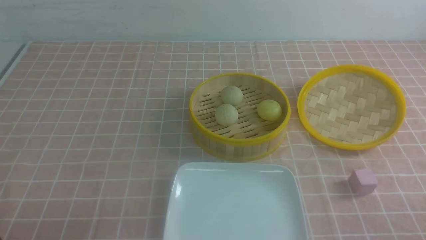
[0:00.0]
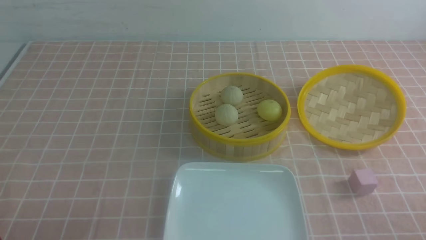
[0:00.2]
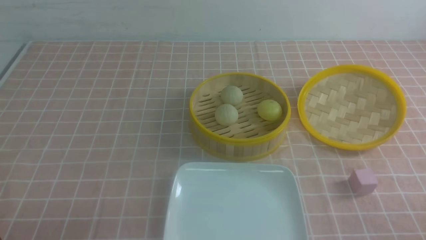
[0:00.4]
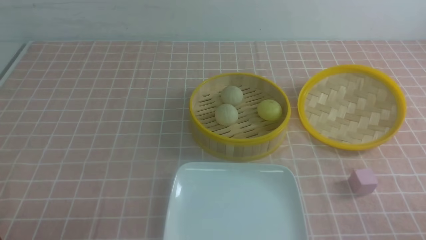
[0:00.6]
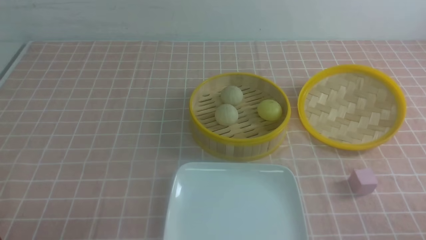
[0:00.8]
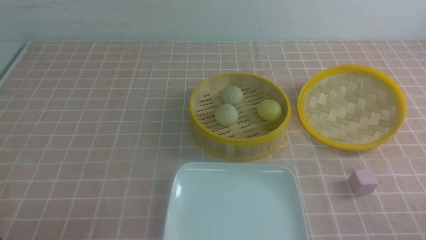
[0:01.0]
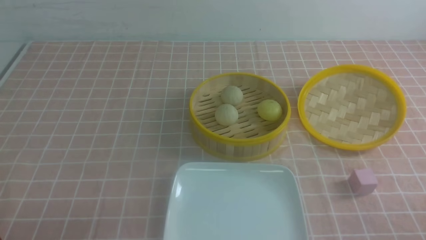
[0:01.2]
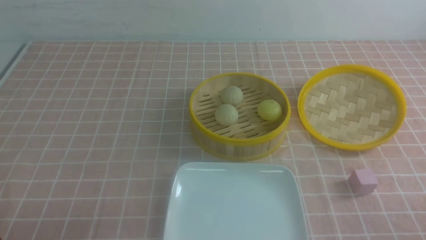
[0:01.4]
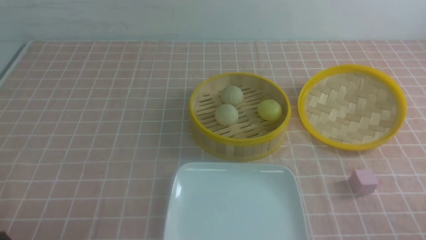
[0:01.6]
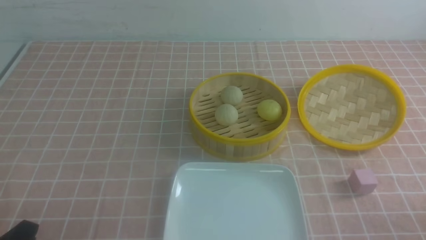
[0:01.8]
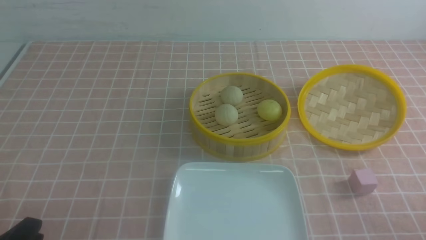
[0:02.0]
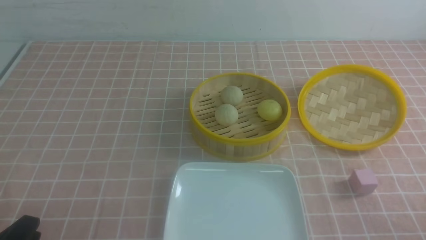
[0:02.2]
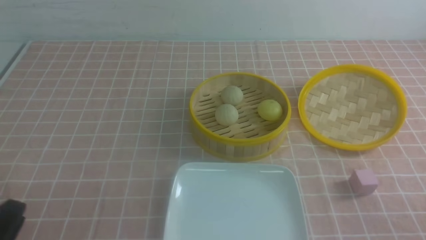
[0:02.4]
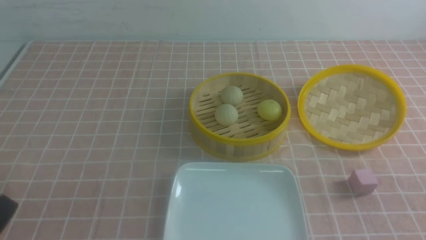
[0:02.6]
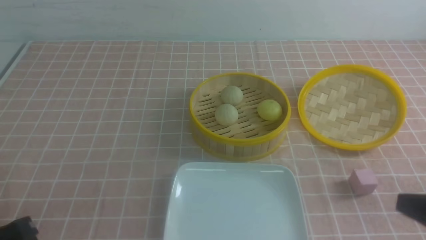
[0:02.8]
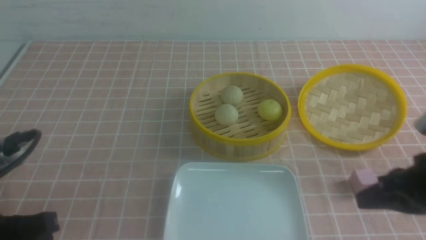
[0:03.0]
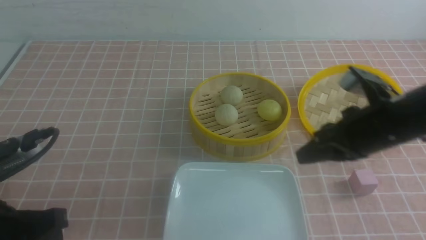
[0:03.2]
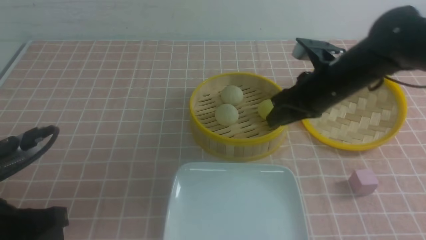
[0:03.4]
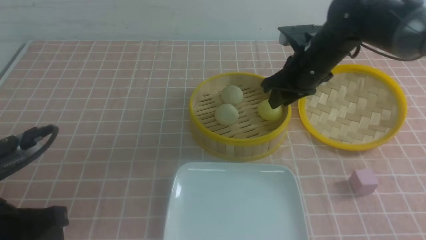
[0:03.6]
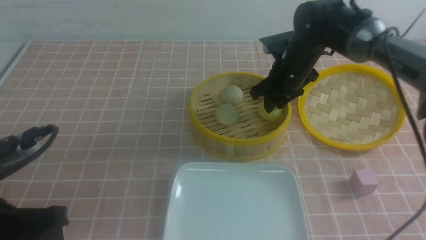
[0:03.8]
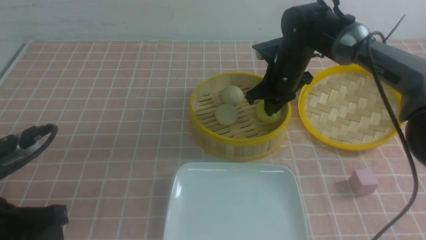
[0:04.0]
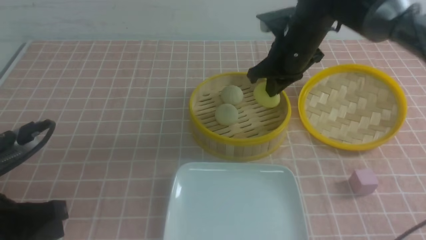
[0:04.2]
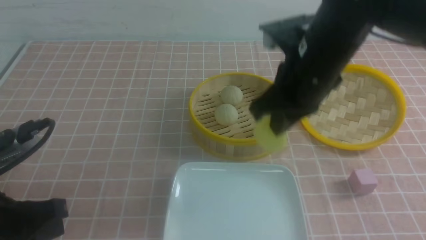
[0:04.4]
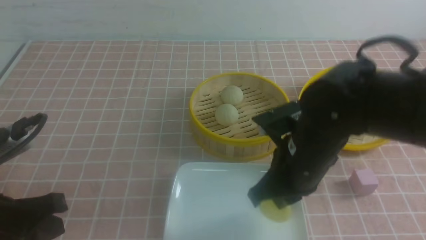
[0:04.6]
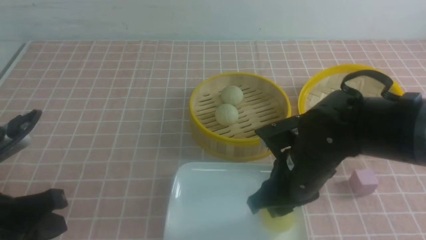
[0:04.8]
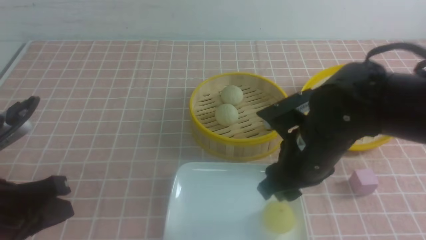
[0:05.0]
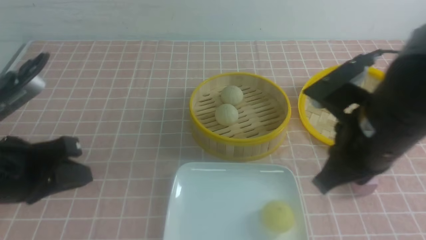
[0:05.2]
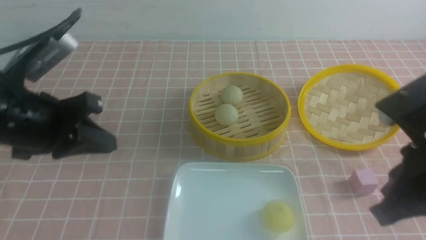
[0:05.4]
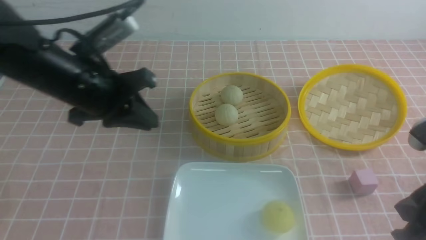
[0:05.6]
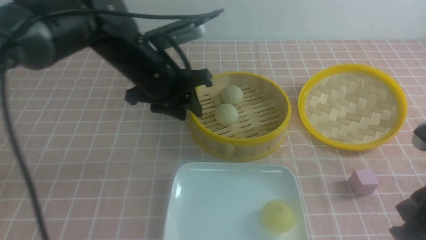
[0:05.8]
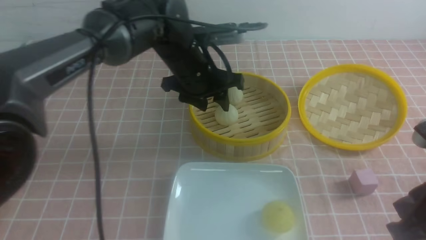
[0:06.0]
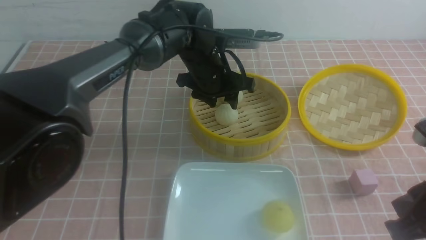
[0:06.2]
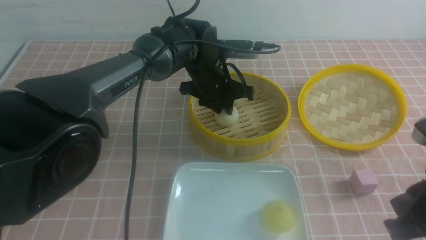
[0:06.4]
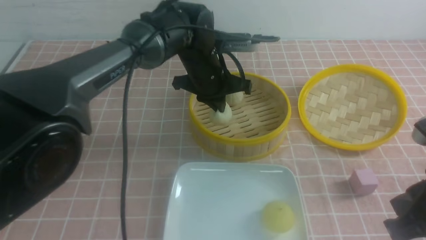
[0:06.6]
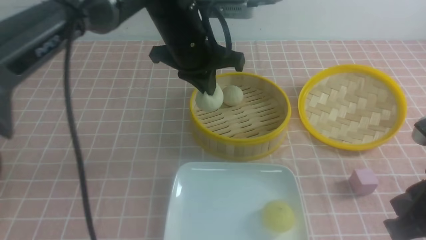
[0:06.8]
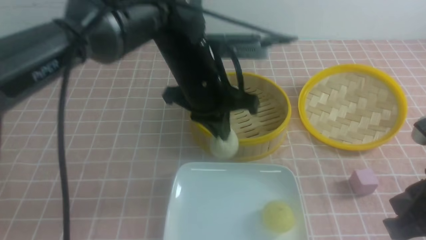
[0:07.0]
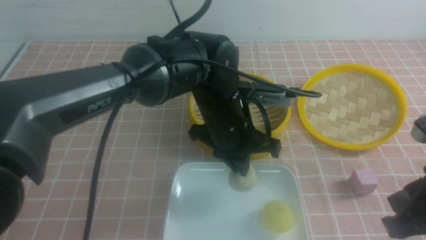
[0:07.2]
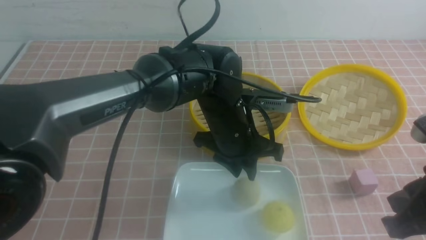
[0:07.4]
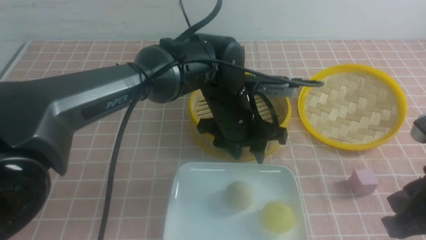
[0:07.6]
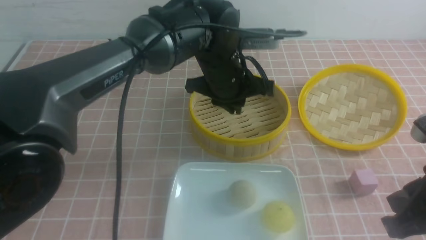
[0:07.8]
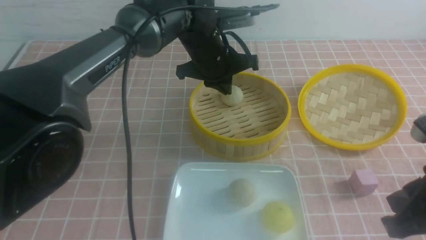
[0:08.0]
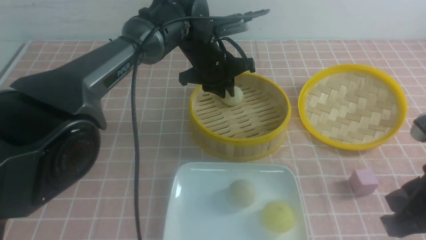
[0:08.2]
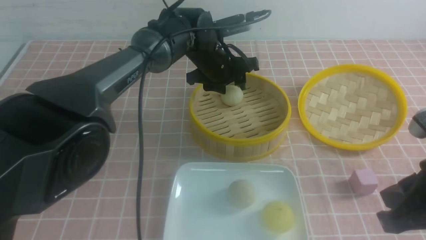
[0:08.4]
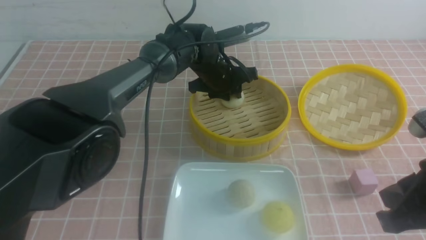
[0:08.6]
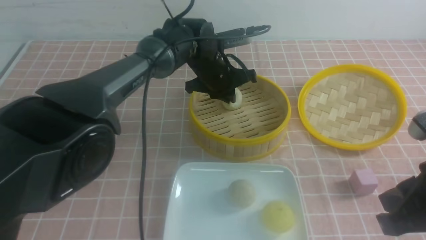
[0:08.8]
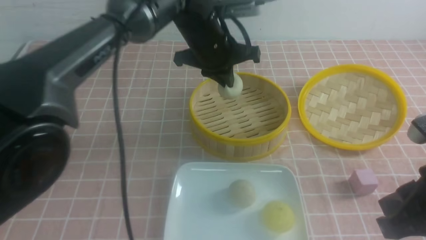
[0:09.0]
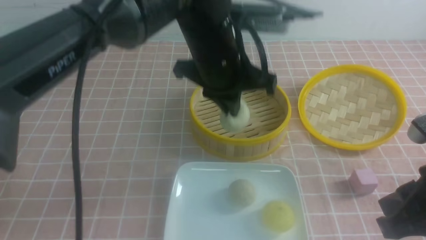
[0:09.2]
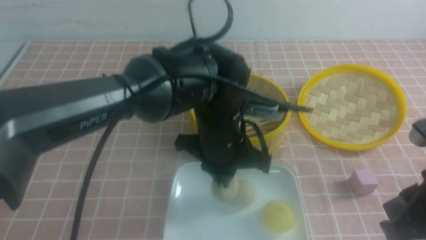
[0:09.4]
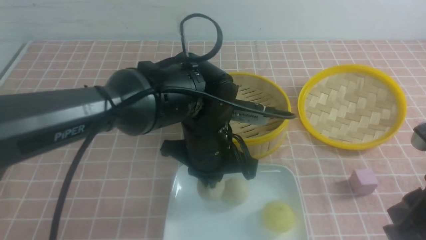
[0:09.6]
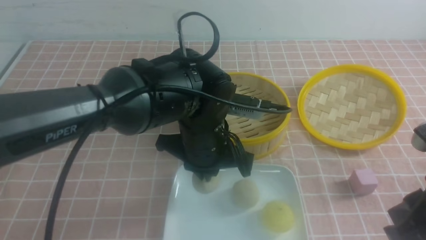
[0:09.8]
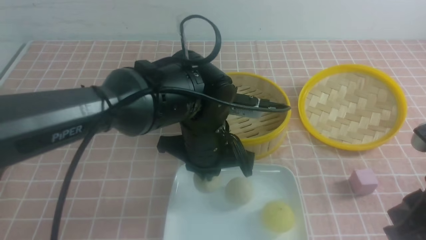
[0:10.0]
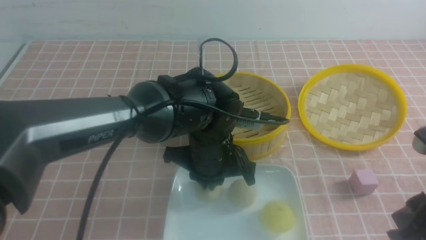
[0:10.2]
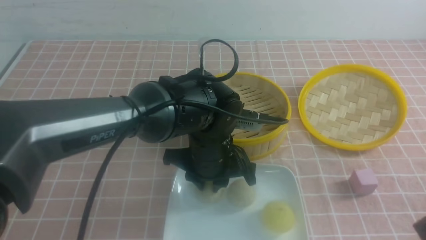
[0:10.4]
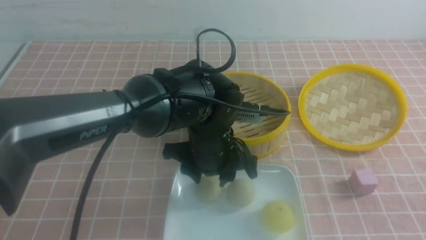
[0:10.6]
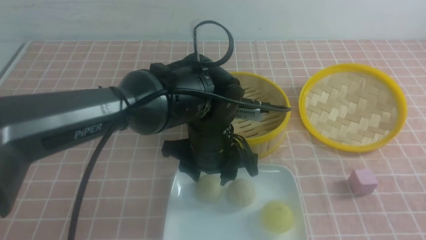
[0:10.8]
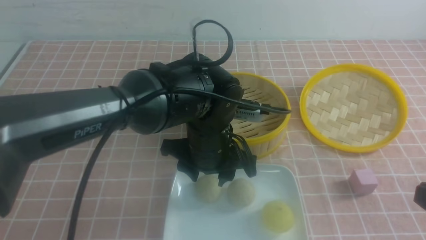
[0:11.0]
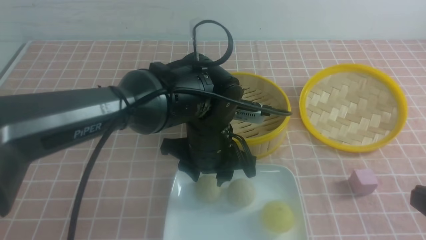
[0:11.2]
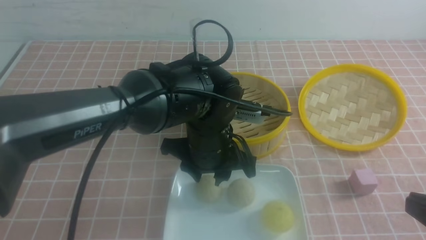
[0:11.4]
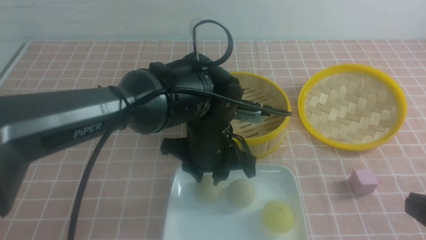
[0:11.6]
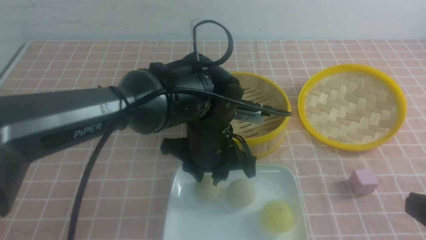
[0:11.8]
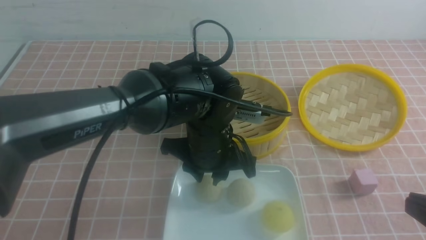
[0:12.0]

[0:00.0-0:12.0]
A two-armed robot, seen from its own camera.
Step, 0:00.0 to 0:04.0: use the right arm to grab the steamed stuffed bun that is closest to it.
Step, 0:04.2 to 0:04.8: use the right arm to put the steamed stuffed bun into the plate.
Step, 0:05.0 to 0:06.4: use the left arm to grab the steamed stuffed bun that is closest to it.
Step, 0:06.8 to 0:07.2: use the left arm to put the steamed stuffed bun into the plate.
Step, 0:07.4 to 0:08.8: use the left arm to grab the steamed stuffed bun that is closest to it.
Step, 0:09.0 to 0:10.4: use the left arm to put the steamed stuffed bun into the plate.
0:01.6 to 0:03.0: The right gripper heads forward, upward and to the left, covering roughly 20 cm, and closes up. The left gripper travels upward and forward by some 10 cm, and closes.
0:03.0 to 0:04.4: The right gripper heads to the left and forward, covering roughly 20 cm, and opens and closes again.
0:04.4 to 0:06.0: The right gripper goes roughly 20 cm backward and to the right, and opens, then closes again. Meanwhile the left gripper moves forward and to the right, roughly 35 cm, and opens up.
0:06.0 to 0:07.6: The left gripper is displaced to the right and backward by approximately 10 cm, and closes its fingers.
0:07.6 to 0:09.0: The left gripper closes.
0:09.0 to 0:10.4: The left gripper heads backward and downward, covering some 15 cm, and opens.
0:10.4 to 0:12.0: The left gripper opens, then closes again; the right gripper ends up approximately 5 cm from where it was.

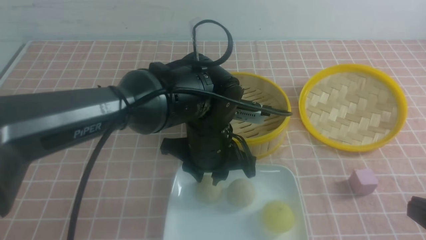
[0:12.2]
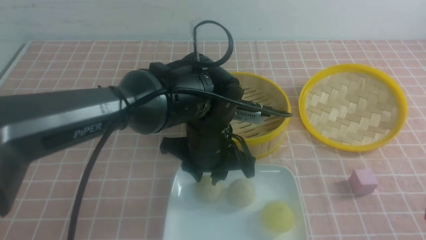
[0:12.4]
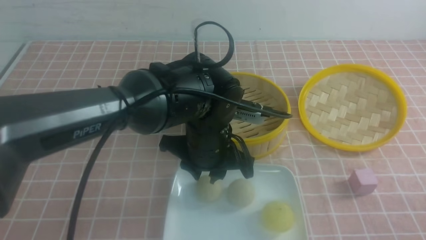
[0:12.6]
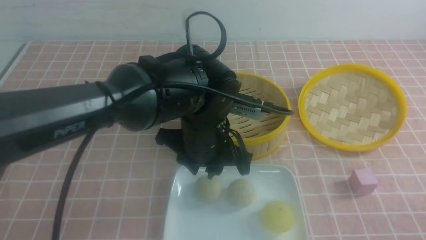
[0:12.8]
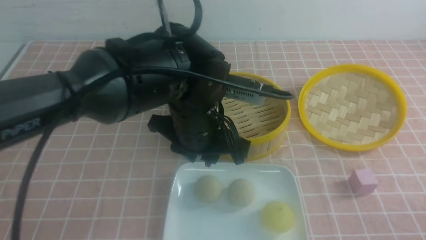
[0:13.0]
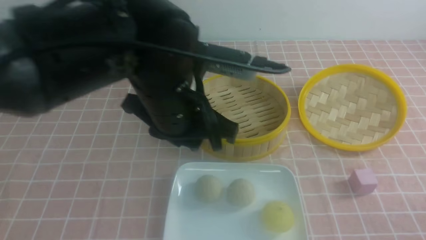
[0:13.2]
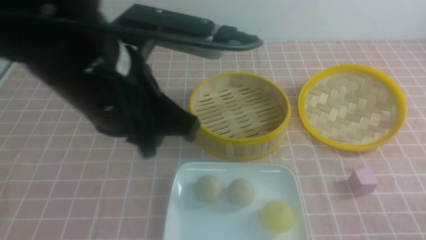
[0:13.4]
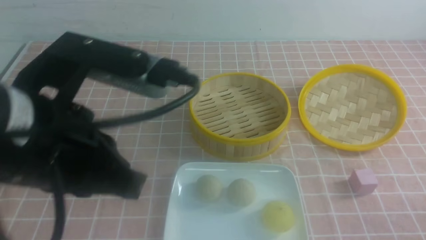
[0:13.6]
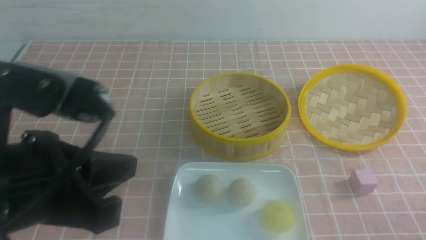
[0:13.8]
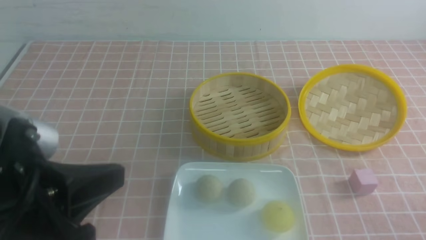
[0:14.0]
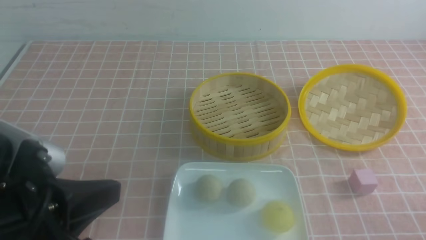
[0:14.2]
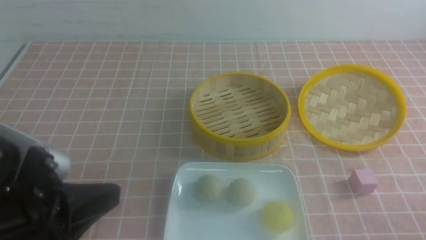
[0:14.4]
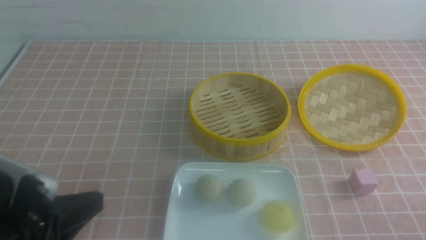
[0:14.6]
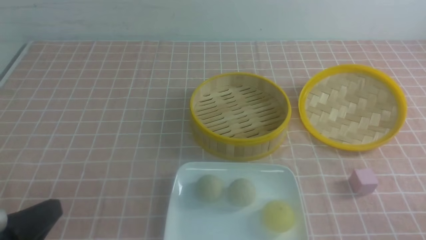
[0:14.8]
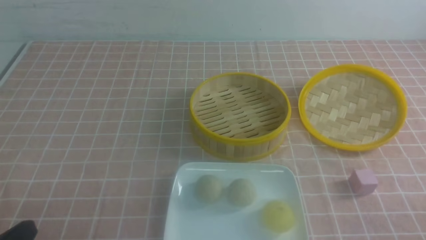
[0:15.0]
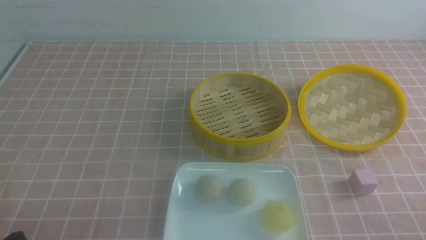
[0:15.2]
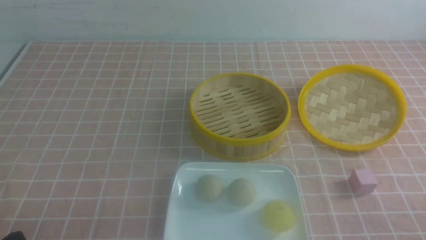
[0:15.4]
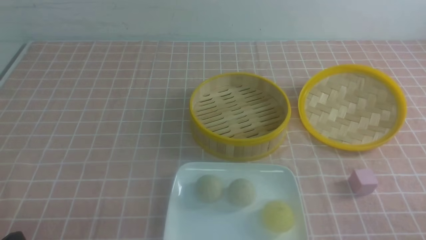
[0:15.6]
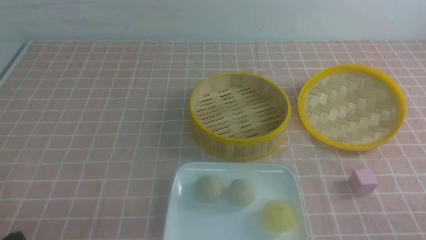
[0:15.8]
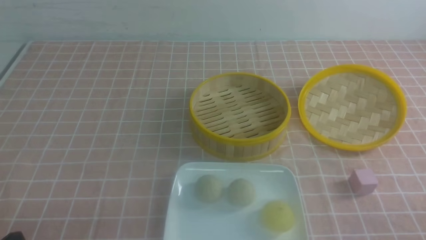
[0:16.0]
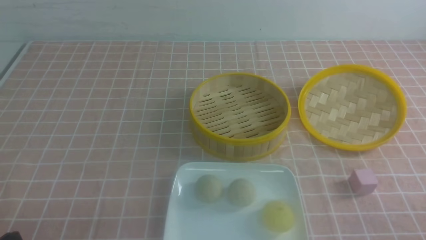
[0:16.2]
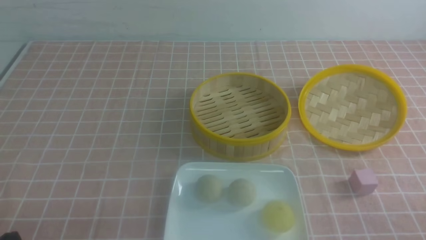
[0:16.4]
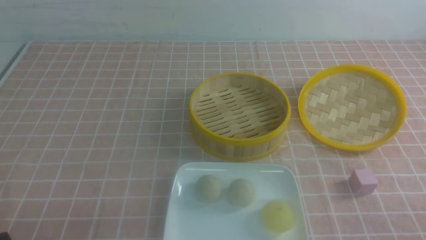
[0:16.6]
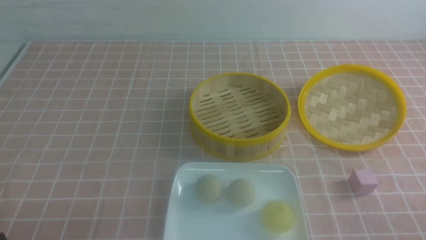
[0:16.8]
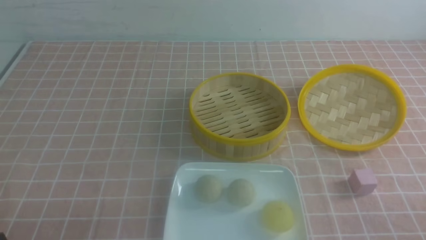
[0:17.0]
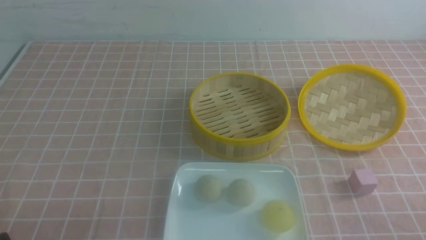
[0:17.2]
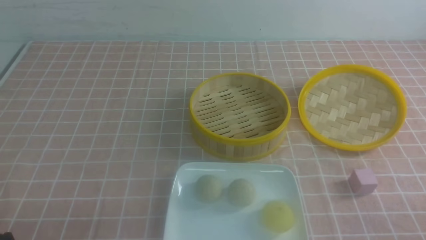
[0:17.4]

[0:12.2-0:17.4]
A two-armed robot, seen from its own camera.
0:12.2 to 0:14.0: The left gripper moves backward, to the left and upward, about 30 cm, and closes up. The right gripper travels downward by about 10 cm.
0:14.0 to 0:15.6: The left gripper shifts approximately 20 cm downward and to the left.
